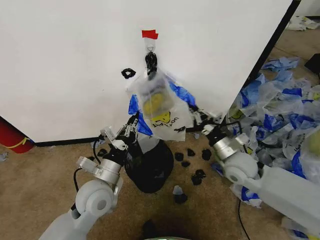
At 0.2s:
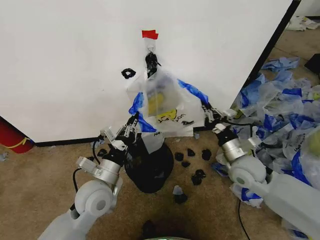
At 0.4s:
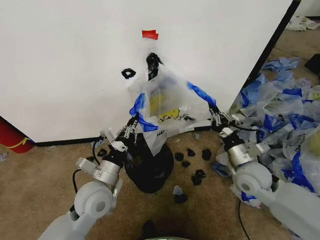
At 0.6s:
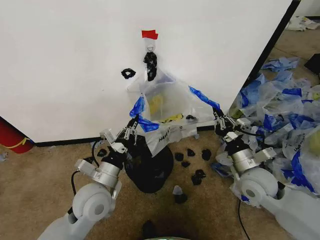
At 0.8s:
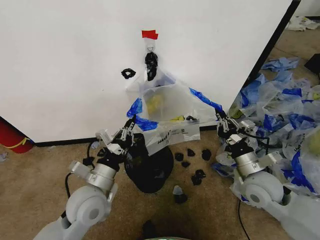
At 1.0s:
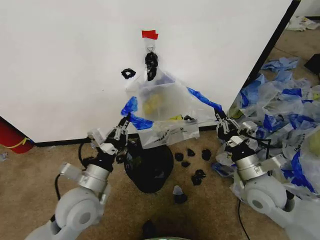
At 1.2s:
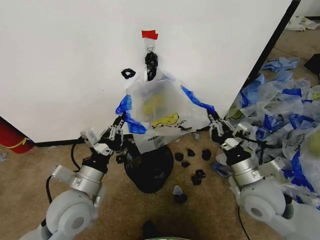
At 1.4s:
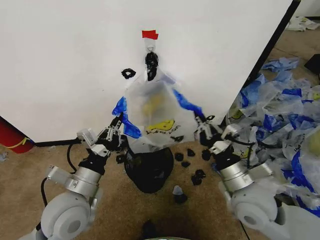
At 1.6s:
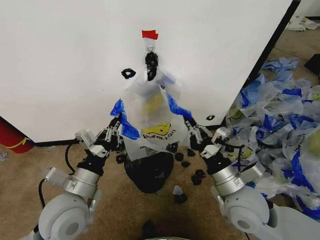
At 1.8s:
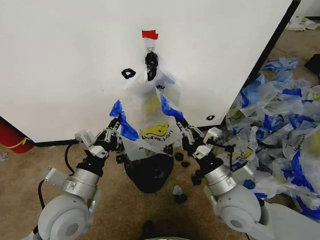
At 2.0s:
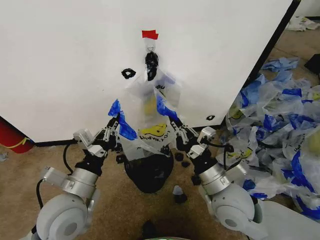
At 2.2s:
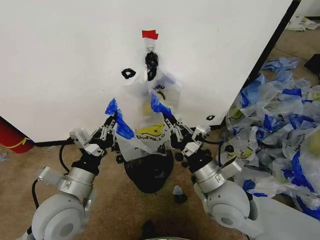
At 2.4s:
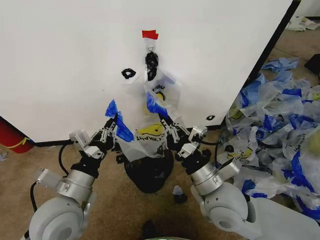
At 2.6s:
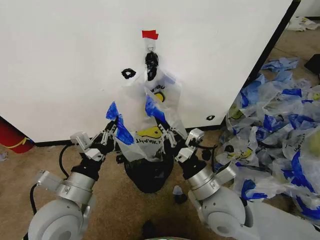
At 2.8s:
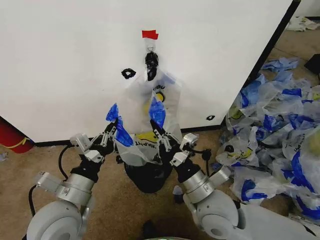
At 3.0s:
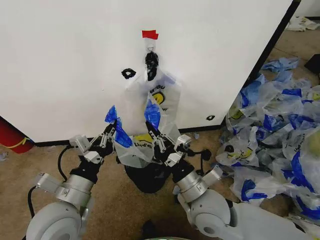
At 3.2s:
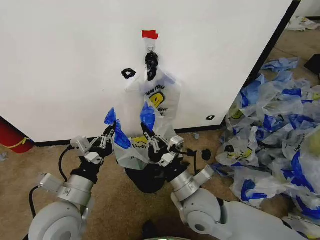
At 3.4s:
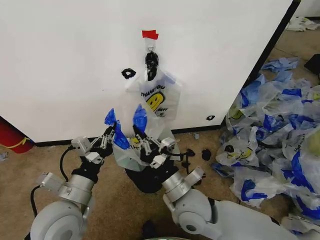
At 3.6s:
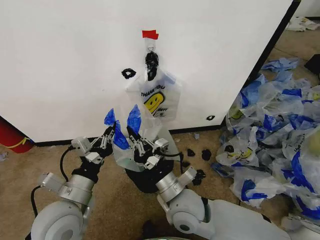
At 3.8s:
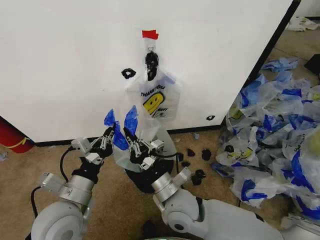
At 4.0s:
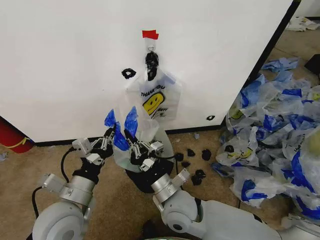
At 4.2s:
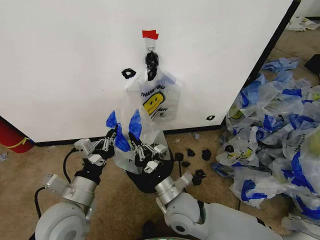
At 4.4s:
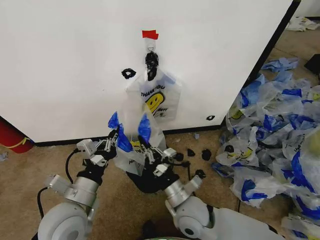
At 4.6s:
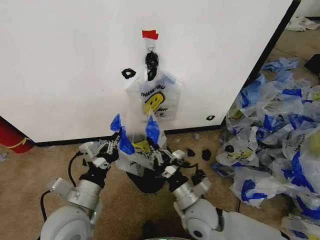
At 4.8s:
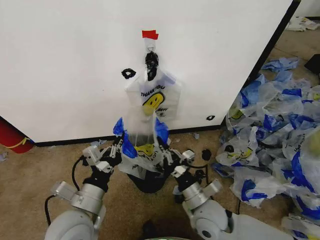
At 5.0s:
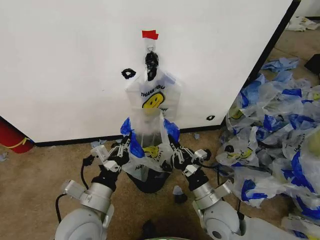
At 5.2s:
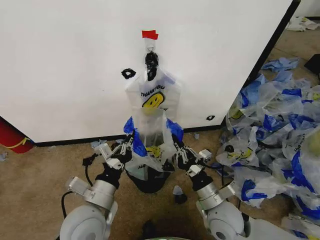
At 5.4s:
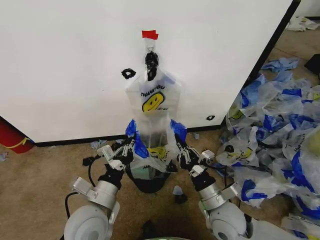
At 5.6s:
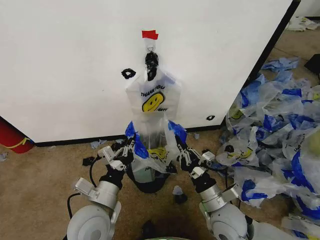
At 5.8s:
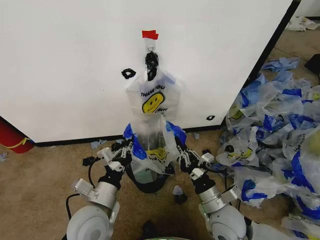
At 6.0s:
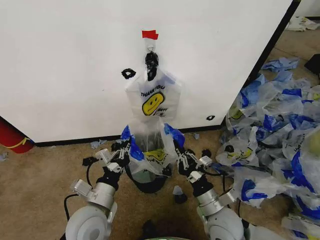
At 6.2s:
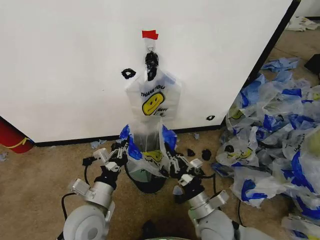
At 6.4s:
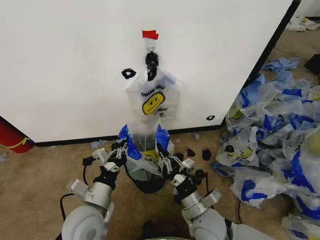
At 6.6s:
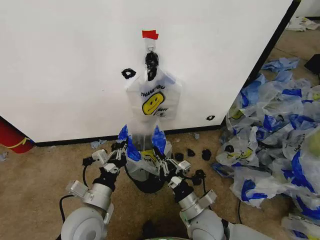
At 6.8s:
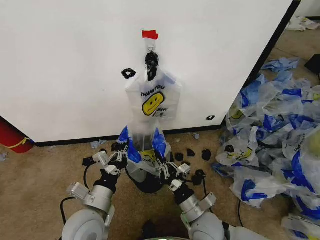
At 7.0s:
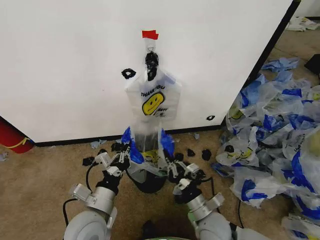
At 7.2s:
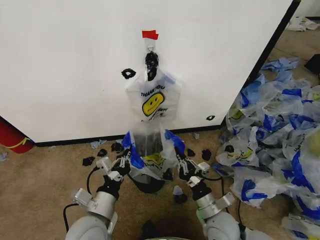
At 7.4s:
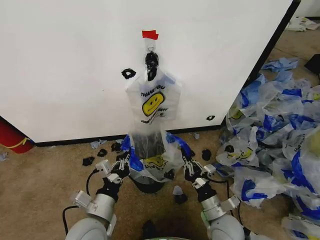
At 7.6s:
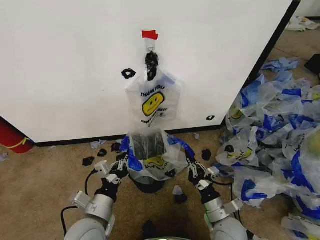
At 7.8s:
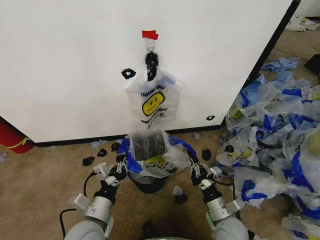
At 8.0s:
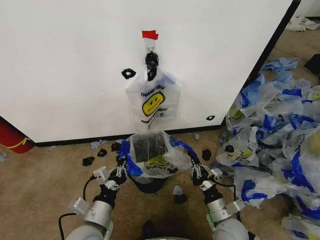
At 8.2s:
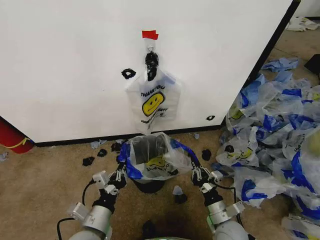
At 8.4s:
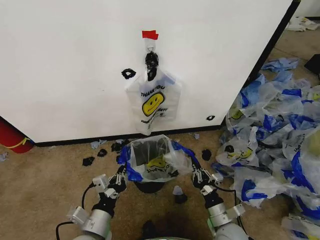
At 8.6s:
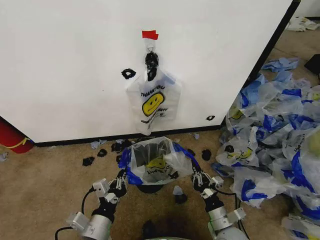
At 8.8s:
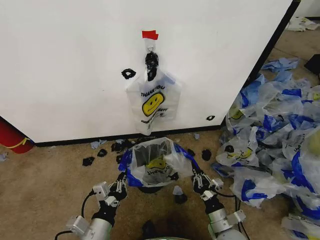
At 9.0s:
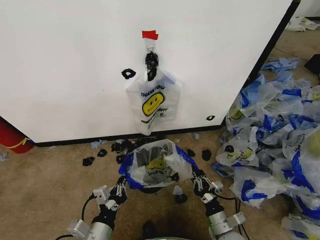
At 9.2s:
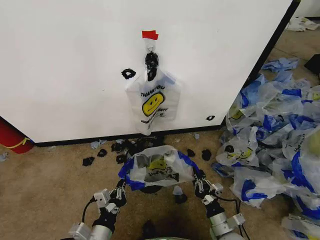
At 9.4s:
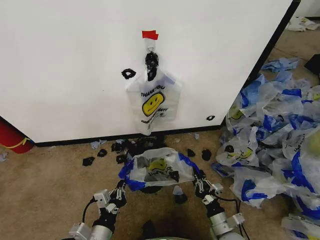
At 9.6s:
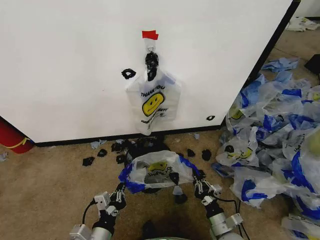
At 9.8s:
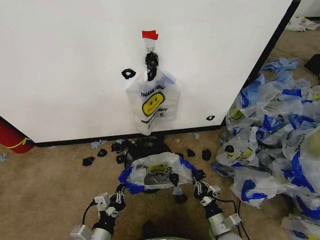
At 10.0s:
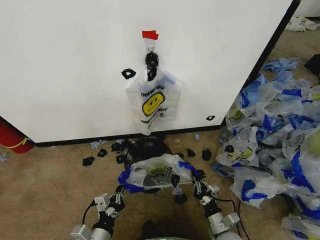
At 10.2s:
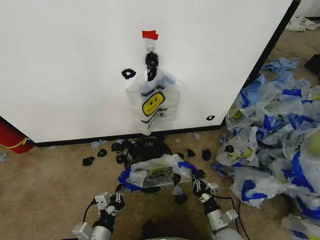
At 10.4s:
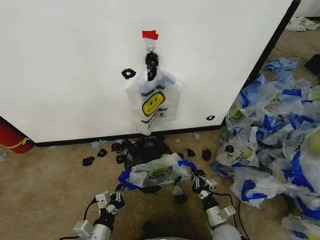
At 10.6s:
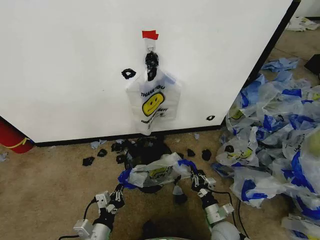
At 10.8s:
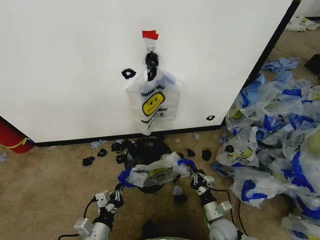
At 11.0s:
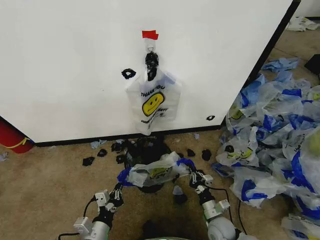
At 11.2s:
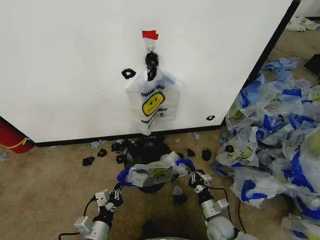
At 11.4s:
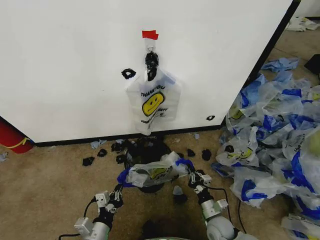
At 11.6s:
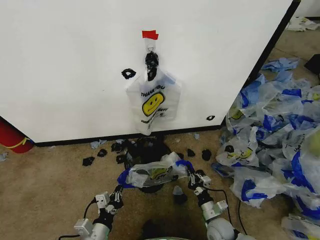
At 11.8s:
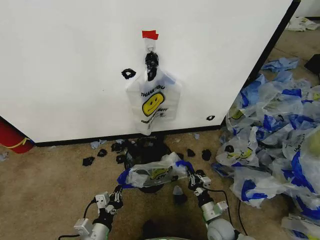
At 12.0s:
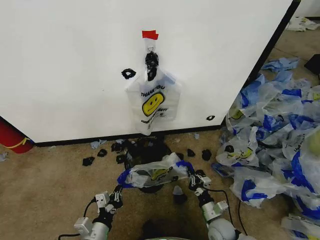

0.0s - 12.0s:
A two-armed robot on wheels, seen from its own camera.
Task of the whole recording: Pick up the garbage bag from the wall and place it over the trash bin.
0.0s - 1.6s: The left gripper goes about 5 cm backward. Meanwhile the right gripper goes about 15 cm backward.
1.6s - 3.0s: The right gripper travels to the left by approximately 10 cm.
3.0s - 4.4s: The right gripper goes approximately 5 cm downward.
4.4s - 6.0s: The left gripper is displaced downward by roughly 5 cm. Meanwhile the right gripper shifts roughly 10 cm to the right.
6.0s - 7.6s: The right gripper moves about 5 cm.
7.6s - 9.0s: The right gripper is displaced downward by roughly 5 cm; the left gripper travels backward by about 5 cm.
9.0s - 10.4s: The two grippers go approximately 5 cm downward.
10.4s - 12.0s: The grippers move only a little.

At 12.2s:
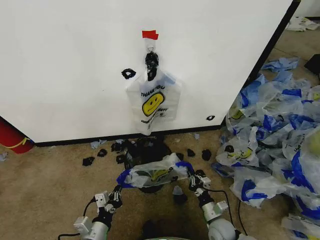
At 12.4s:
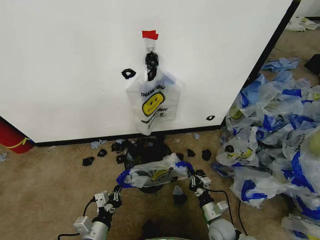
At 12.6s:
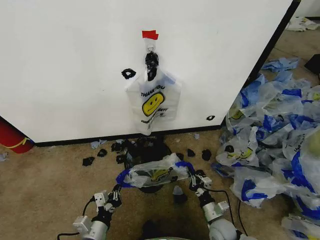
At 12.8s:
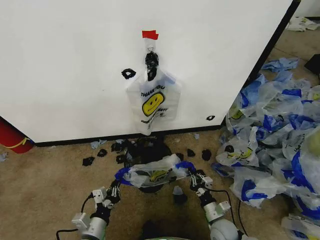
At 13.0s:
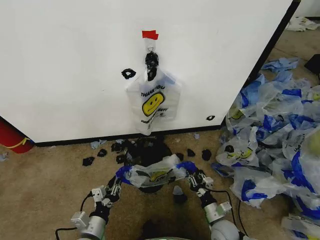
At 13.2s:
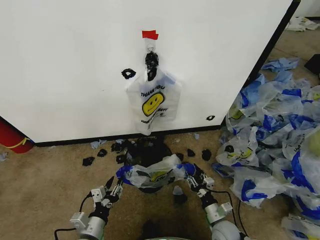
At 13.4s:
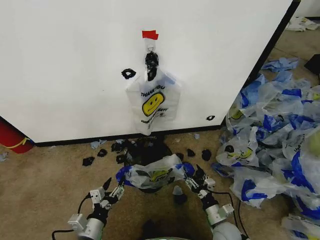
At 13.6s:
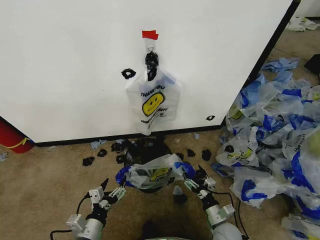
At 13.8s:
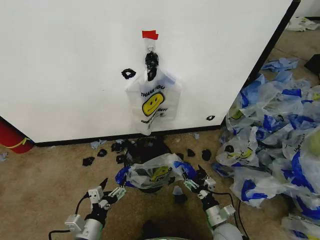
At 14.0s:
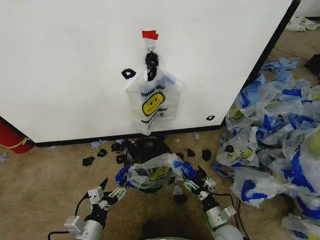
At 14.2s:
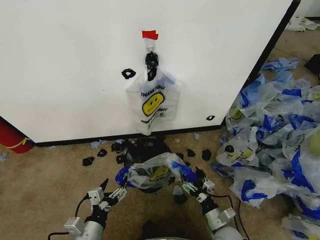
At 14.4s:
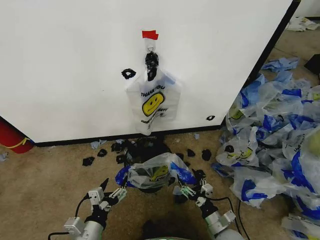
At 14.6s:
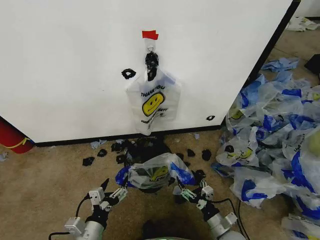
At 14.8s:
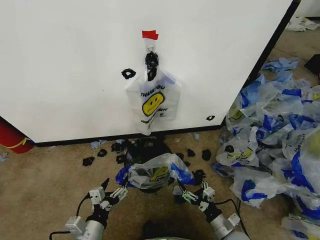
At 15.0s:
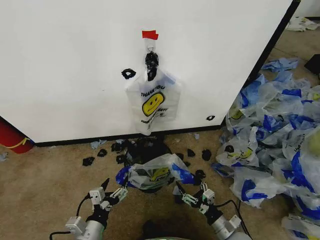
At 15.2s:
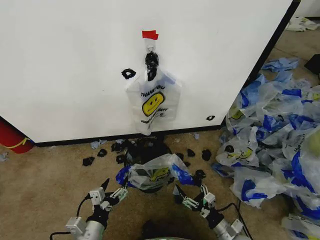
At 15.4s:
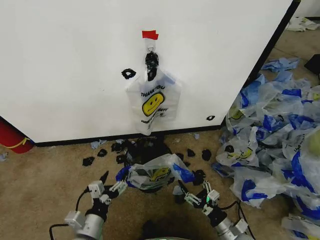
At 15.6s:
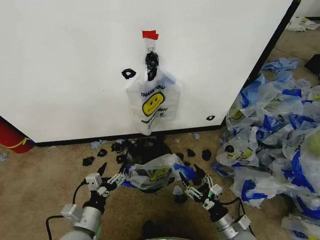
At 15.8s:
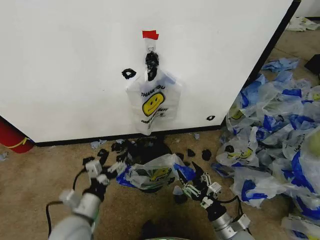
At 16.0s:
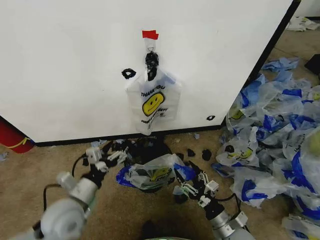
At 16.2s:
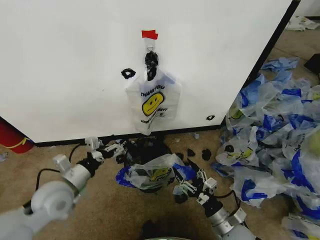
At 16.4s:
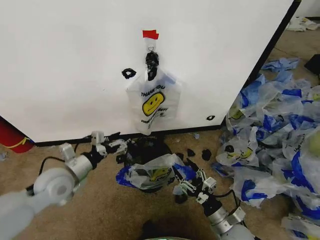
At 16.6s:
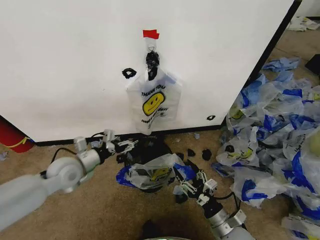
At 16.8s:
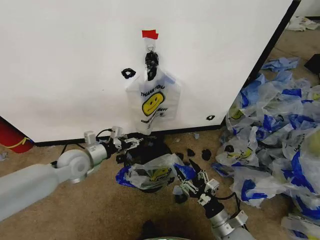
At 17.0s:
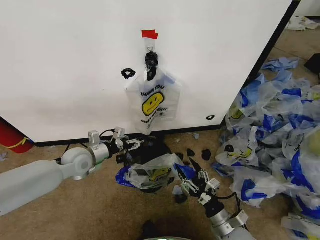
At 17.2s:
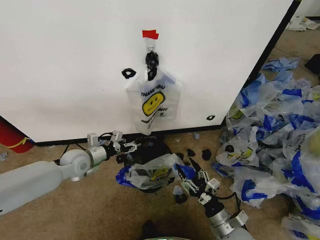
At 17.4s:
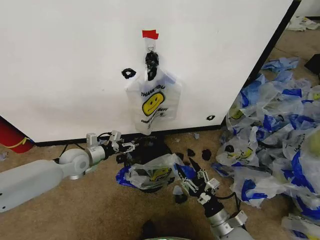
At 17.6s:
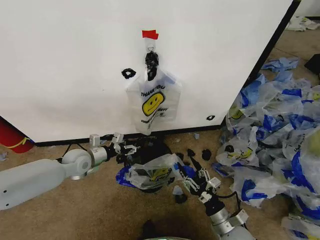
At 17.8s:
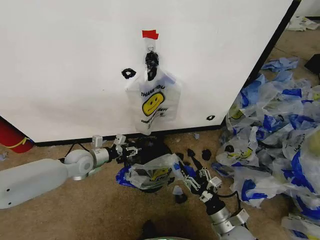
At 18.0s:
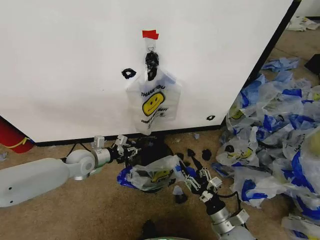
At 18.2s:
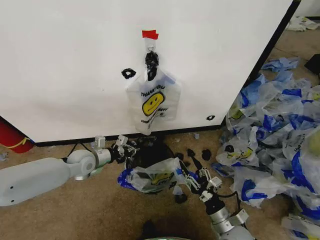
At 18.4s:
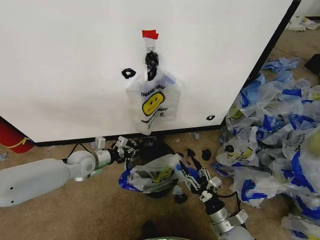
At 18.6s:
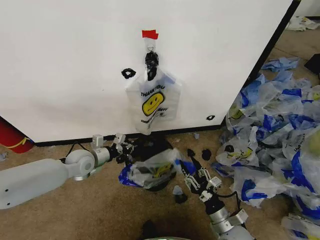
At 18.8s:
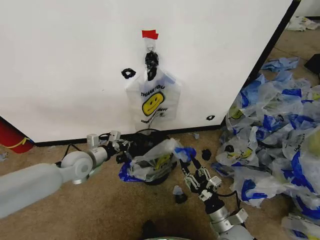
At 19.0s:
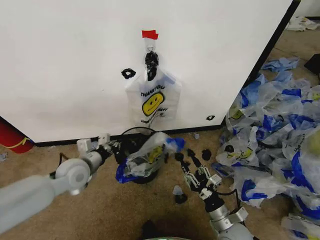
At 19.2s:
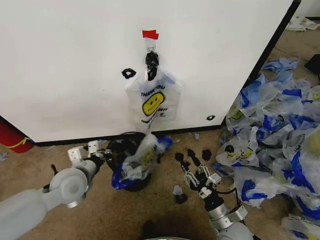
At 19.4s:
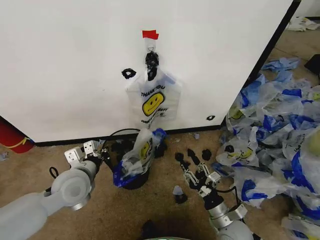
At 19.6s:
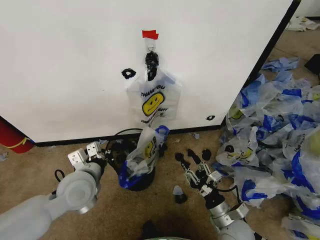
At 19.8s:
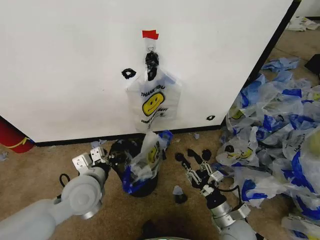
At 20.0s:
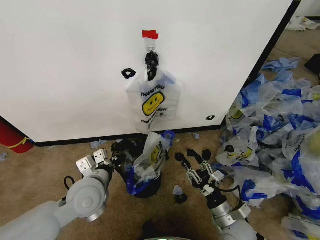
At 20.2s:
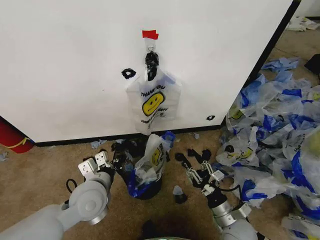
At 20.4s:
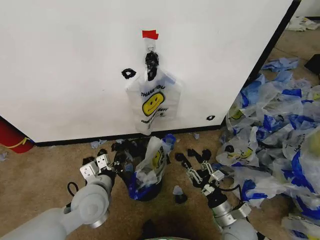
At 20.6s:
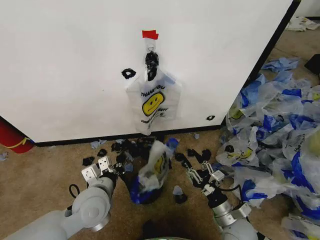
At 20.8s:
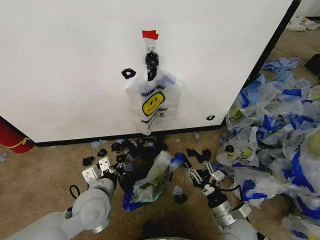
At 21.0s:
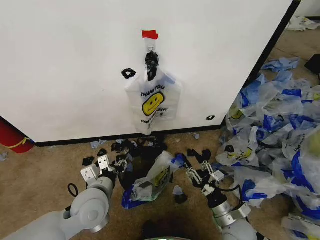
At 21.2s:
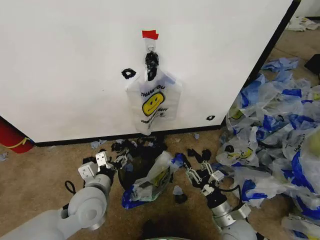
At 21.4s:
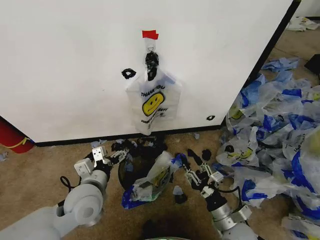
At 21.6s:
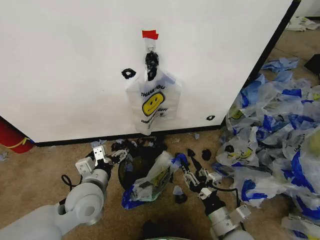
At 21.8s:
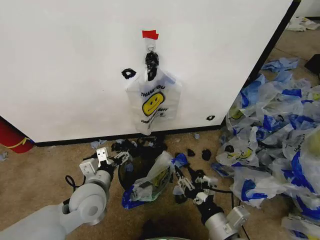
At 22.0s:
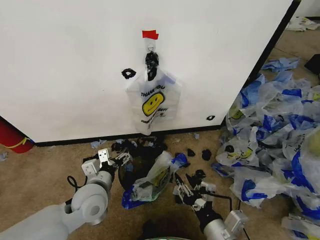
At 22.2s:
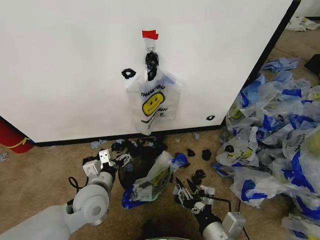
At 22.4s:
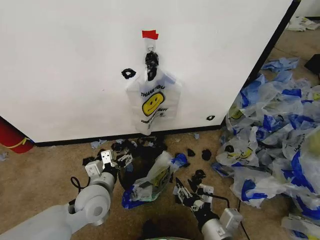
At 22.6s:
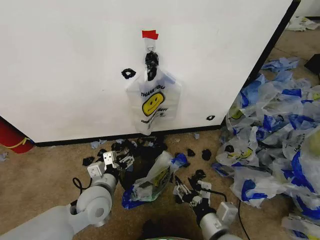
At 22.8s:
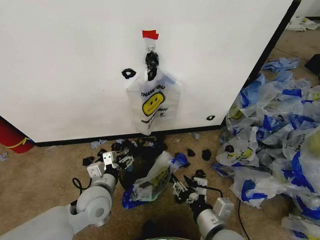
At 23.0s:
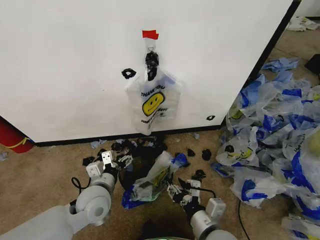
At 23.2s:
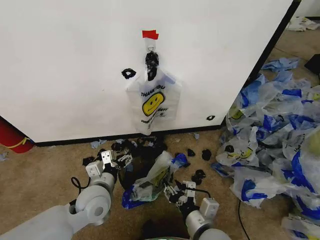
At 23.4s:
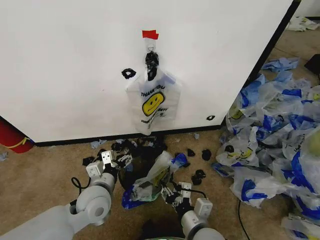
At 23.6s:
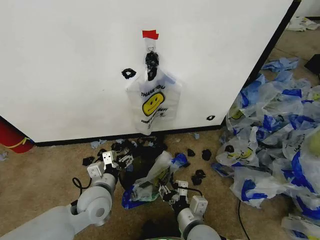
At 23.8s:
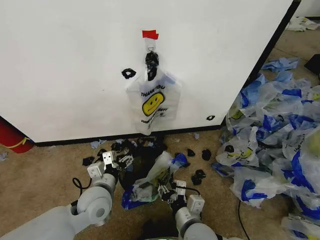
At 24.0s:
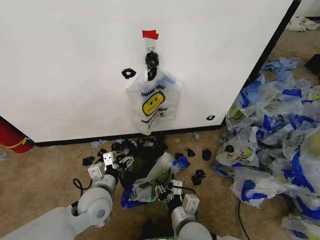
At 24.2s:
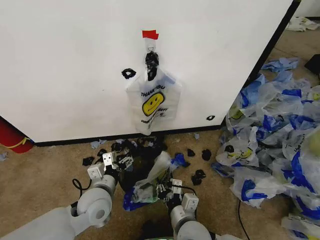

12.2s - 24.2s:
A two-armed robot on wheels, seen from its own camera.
Task of the whole recording: Pick up the garbage bag from the wall and place it over the trash bin.
12.2s - 13.8s: The right gripper opens. The left gripper opens its fingers.
13.8s - 15.2s: The right gripper shifts by some 5 cm.
15.2s - 16.6s: The right gripper travels upward by roughly 10 cm. The left gripper goes roughly 25 cm forward and upward.
16.6s - 18.2s: The left gripper travels forward and downward by about 10 cm, and closes up.
18.2s - 19.8s: The left gripper moves backward, to the right and upward, roughly 20 cm.
19.8s - 21.2s: The left gripper opens.
21.2s - 22.6s: The right gripper travels upward, to the left and backward by about 15 cm.
22.6s - 24.2s: The right gripper moves to the left, roughly 10 cm.
